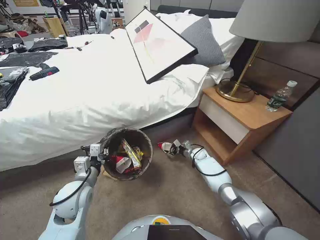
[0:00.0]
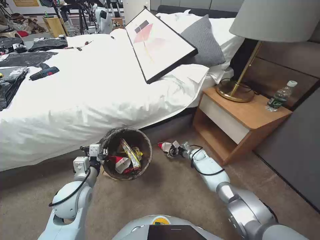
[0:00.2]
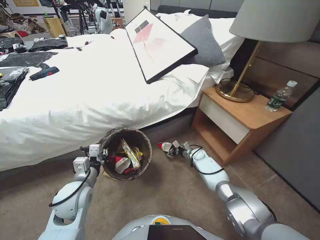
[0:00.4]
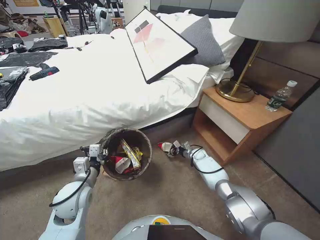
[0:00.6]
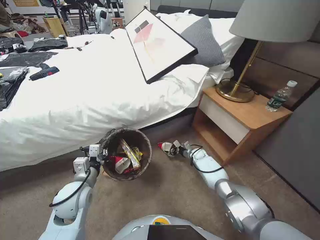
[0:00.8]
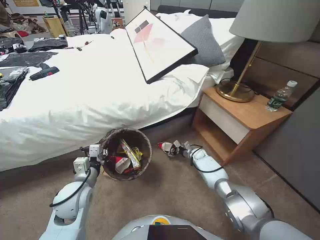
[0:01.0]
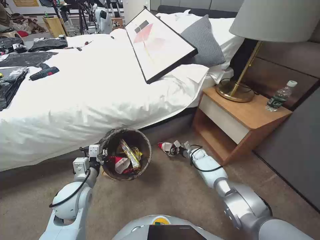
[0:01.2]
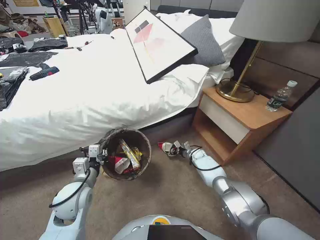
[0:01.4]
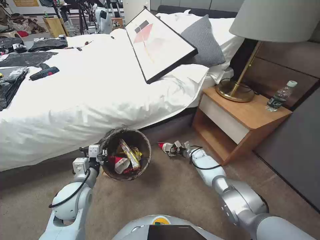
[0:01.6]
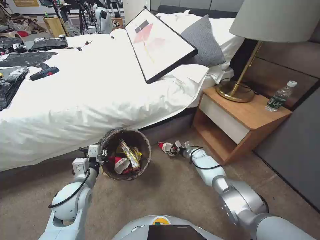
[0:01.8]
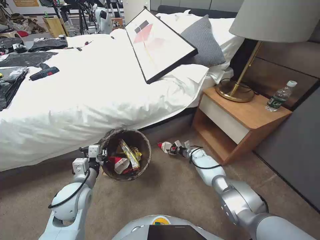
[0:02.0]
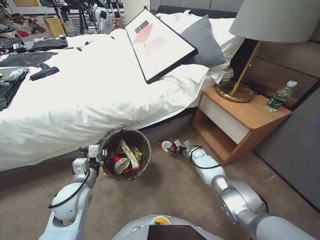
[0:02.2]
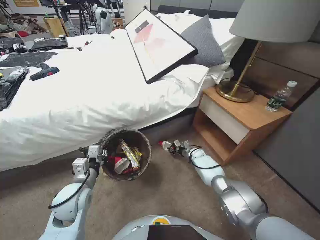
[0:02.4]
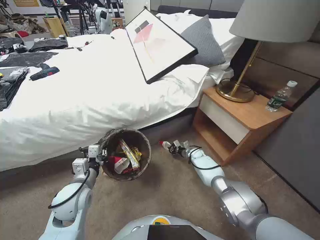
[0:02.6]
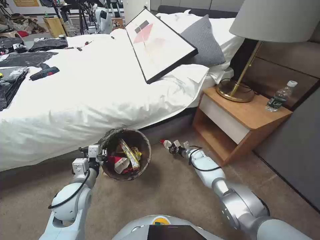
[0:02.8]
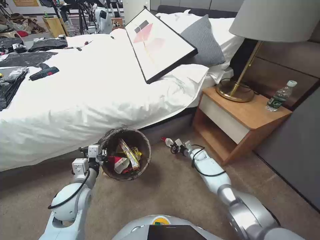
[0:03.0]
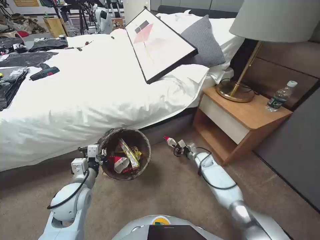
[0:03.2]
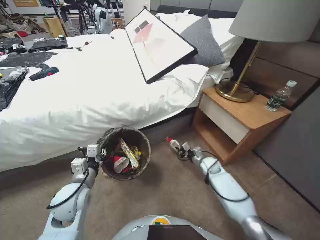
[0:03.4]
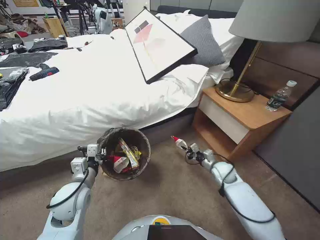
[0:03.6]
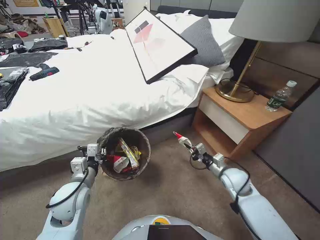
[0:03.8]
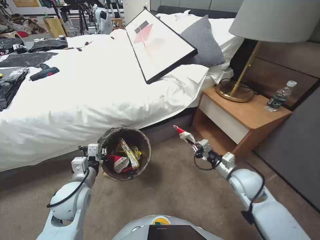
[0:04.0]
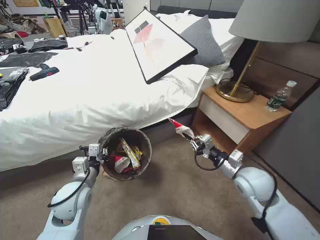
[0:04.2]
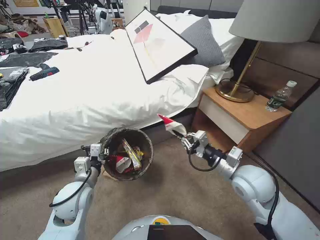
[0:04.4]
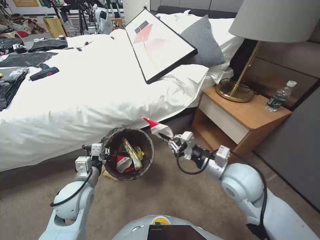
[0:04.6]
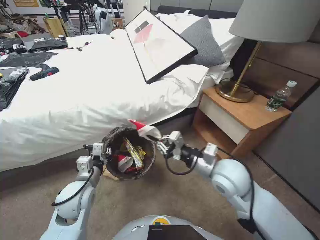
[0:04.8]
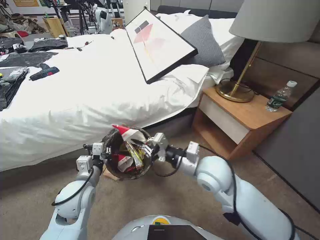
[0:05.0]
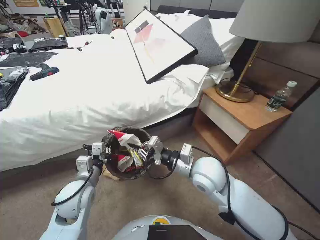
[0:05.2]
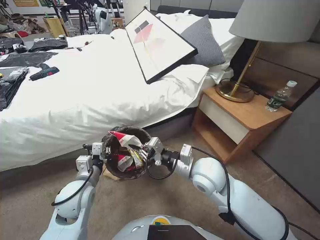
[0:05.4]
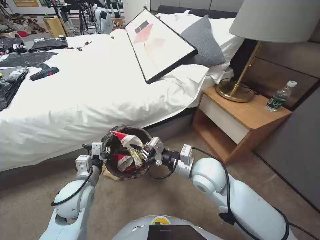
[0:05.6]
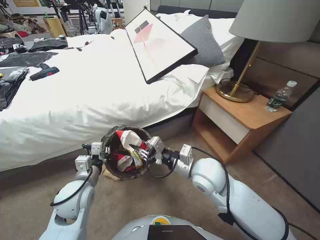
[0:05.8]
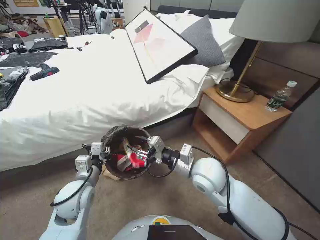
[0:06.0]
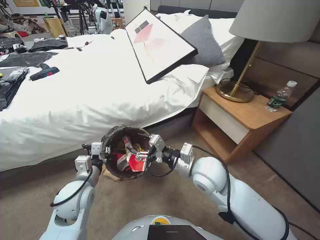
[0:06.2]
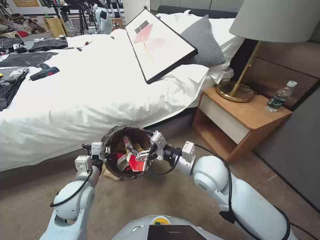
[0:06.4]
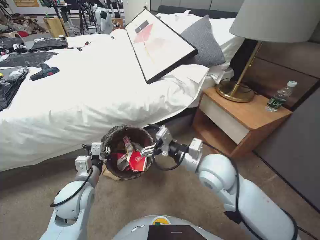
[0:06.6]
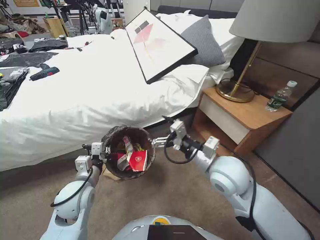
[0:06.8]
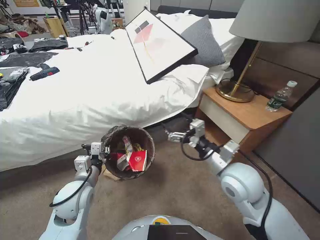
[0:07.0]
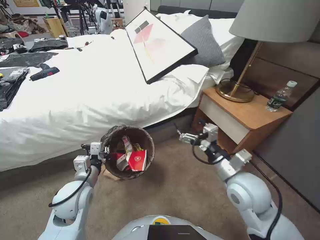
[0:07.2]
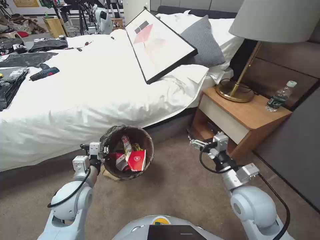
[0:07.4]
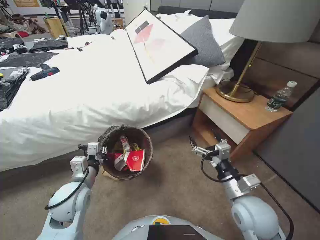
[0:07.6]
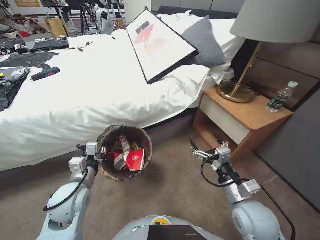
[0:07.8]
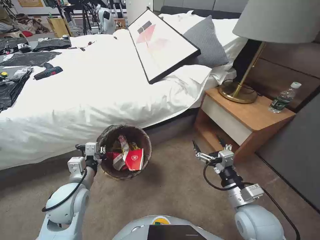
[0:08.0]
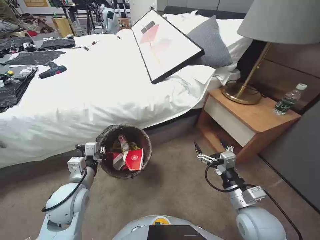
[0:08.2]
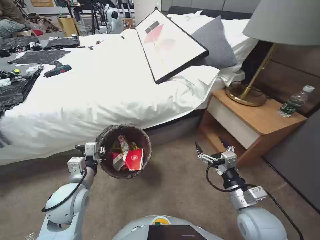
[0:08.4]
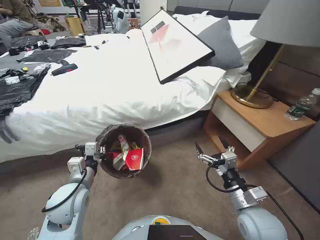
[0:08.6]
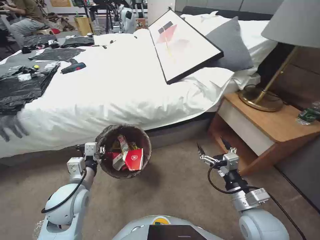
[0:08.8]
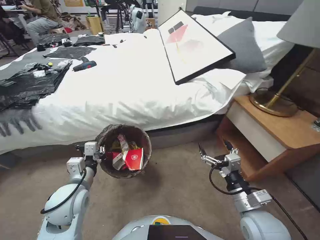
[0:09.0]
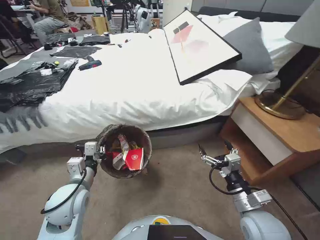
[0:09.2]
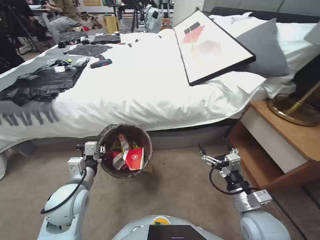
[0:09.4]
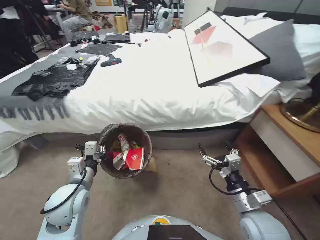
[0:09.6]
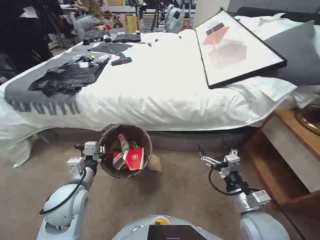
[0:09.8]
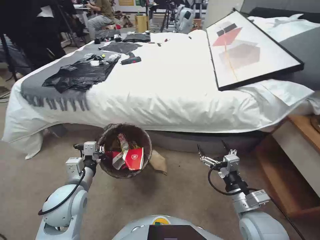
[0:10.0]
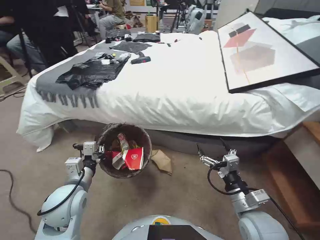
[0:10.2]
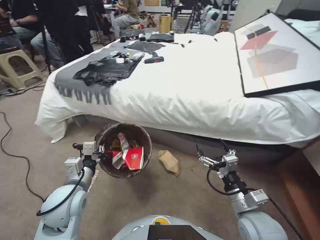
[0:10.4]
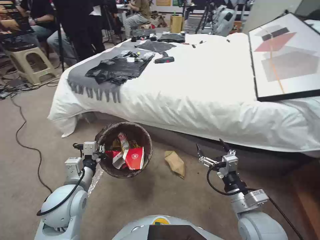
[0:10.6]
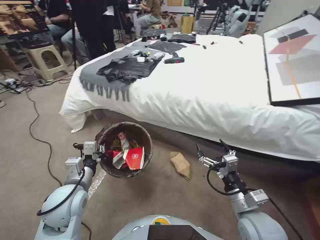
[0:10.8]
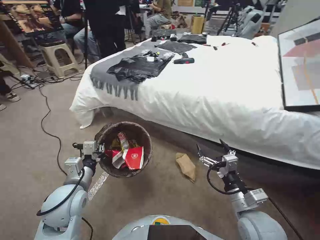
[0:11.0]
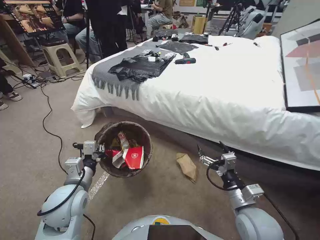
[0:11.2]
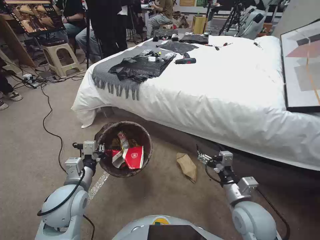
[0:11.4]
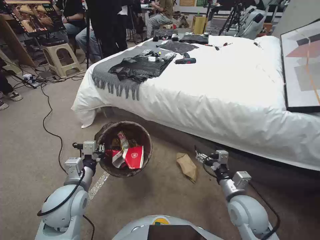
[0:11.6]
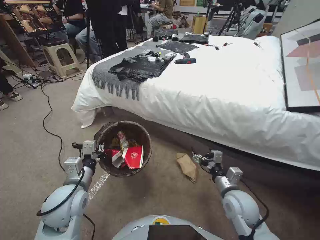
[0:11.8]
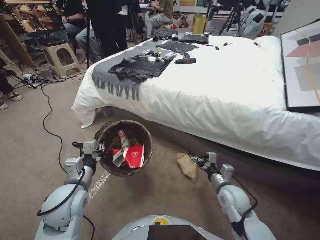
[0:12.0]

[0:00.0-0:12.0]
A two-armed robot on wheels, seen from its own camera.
Task of the whole recording: Pick up the trash bin, then pick up the garbage from the floor and place it into the trash bin.
0:00.0 to 0:01.6: There are only small adjustments of the grippers.
0:01.6 to 0:03.0: The right gripper closes up.
0:03.0 to 0:04.4: The right gripper travels upward and backward by approximately 40 cm.
0:04.4 to 0:06.0: The right gripper goes roughly 15 cm to the left.
0:06.0 to 0:07.6: The right gripper goes approximately 15 cm to the right and backward, and opens its fingers.
0:07.6 to 0:09.0: The right gripper changes place by approximately 5 cm.
0:10.4 to 0:12.0: The right gripper goes about 10 cm forward and downward.

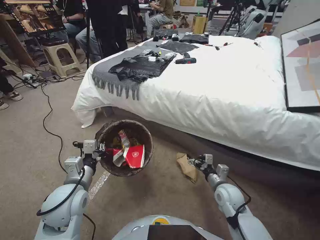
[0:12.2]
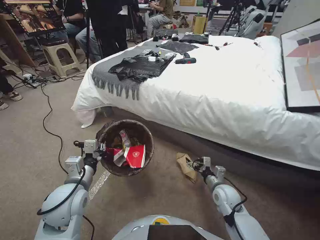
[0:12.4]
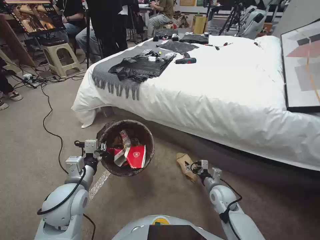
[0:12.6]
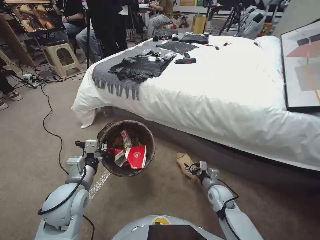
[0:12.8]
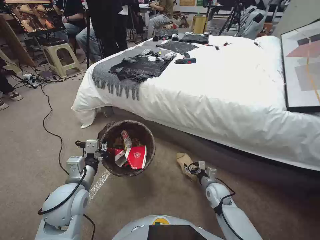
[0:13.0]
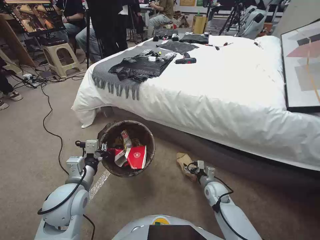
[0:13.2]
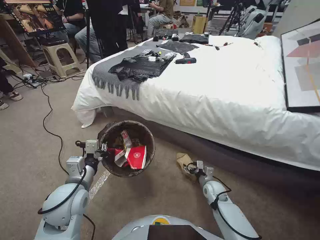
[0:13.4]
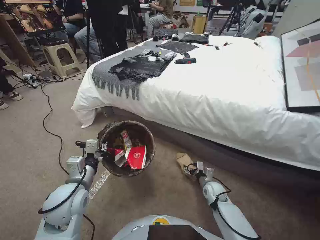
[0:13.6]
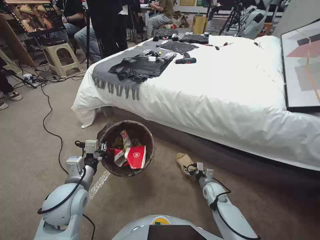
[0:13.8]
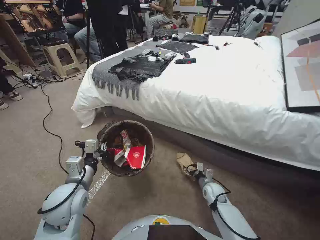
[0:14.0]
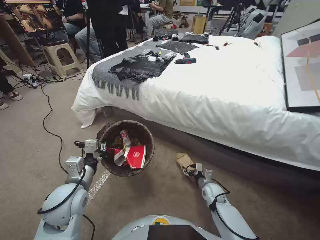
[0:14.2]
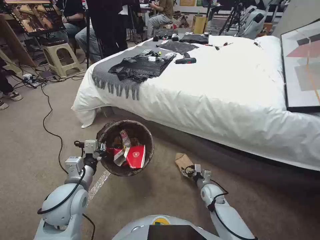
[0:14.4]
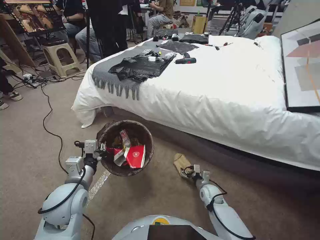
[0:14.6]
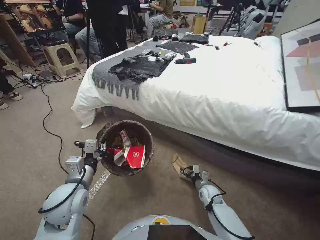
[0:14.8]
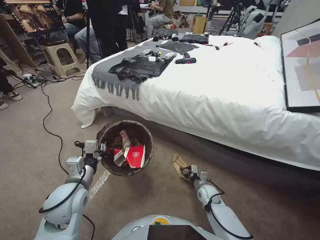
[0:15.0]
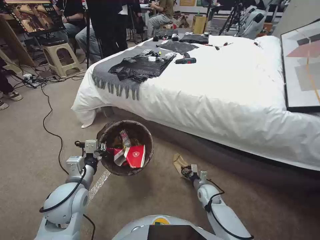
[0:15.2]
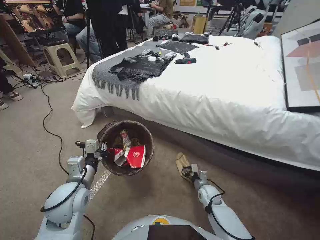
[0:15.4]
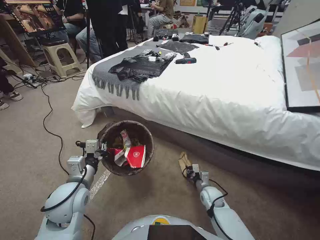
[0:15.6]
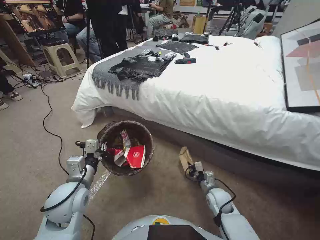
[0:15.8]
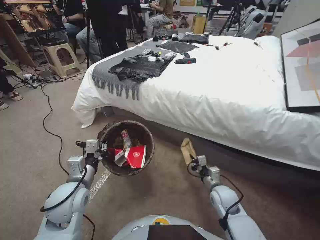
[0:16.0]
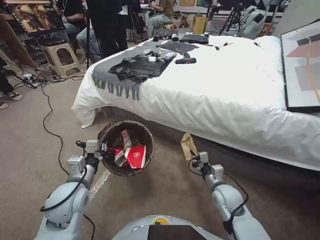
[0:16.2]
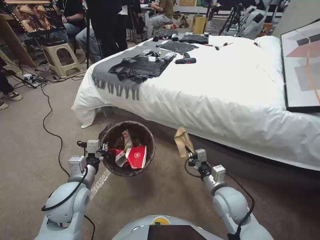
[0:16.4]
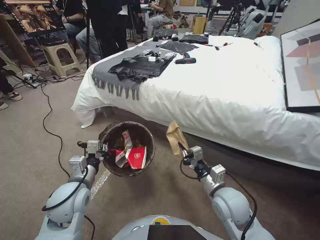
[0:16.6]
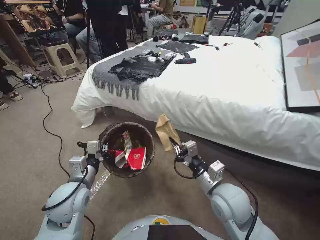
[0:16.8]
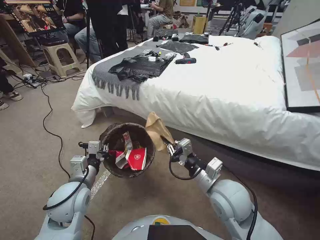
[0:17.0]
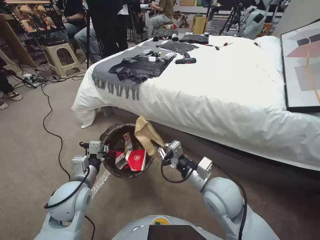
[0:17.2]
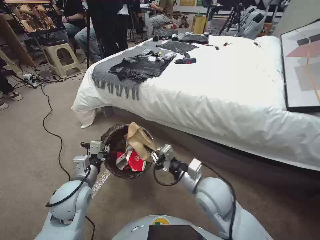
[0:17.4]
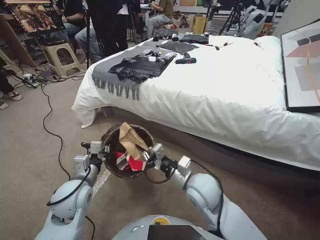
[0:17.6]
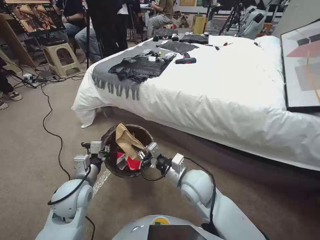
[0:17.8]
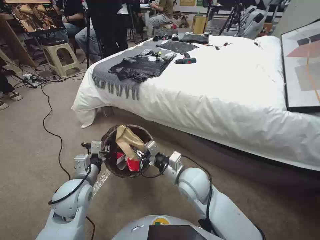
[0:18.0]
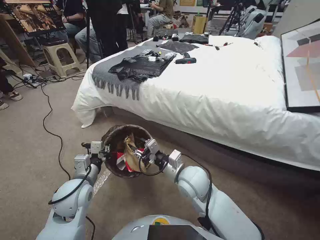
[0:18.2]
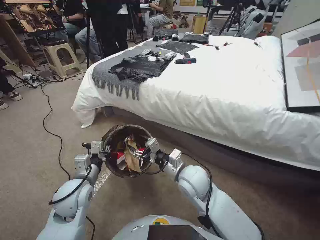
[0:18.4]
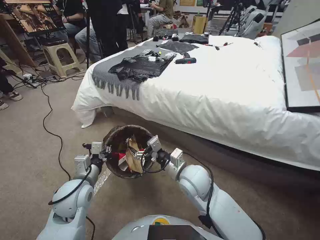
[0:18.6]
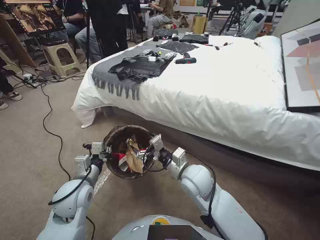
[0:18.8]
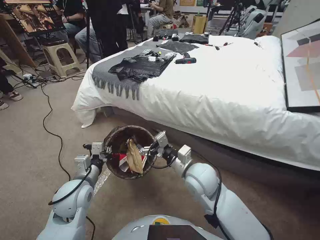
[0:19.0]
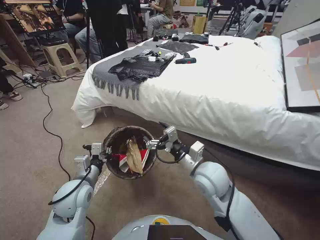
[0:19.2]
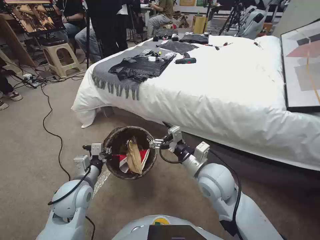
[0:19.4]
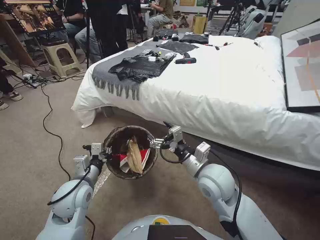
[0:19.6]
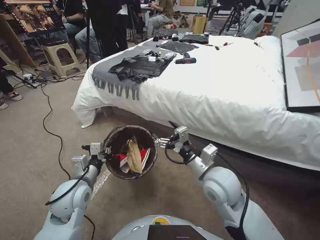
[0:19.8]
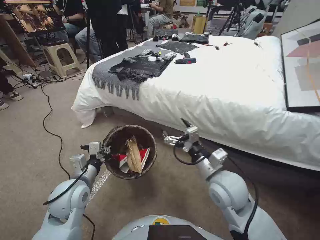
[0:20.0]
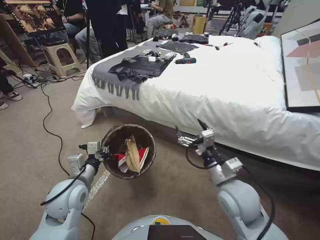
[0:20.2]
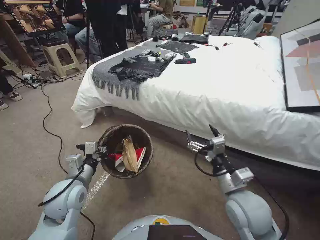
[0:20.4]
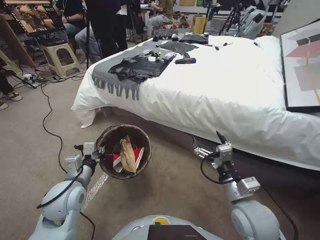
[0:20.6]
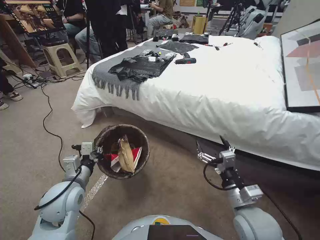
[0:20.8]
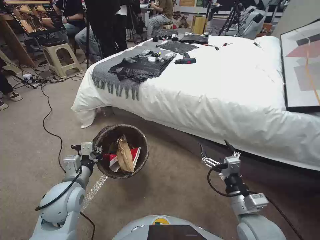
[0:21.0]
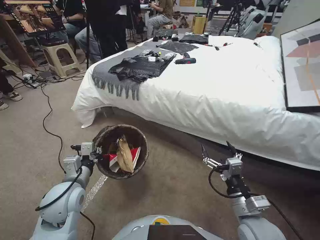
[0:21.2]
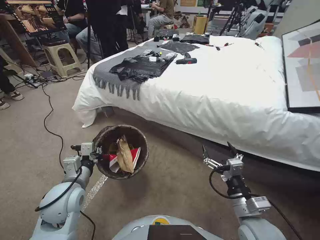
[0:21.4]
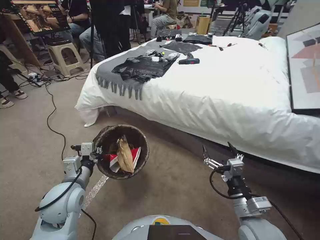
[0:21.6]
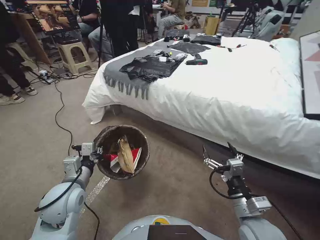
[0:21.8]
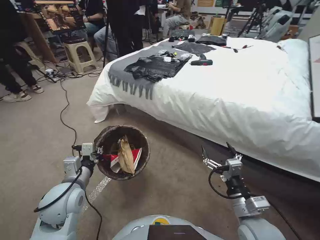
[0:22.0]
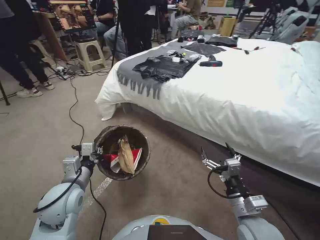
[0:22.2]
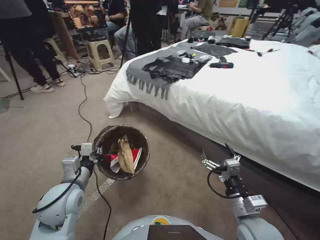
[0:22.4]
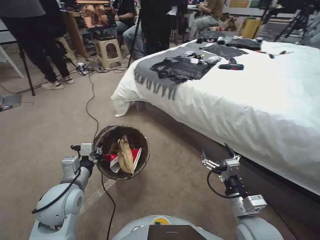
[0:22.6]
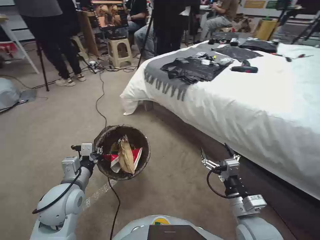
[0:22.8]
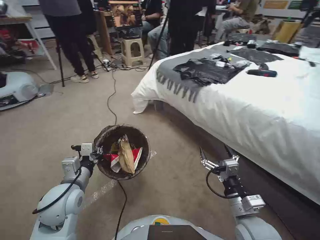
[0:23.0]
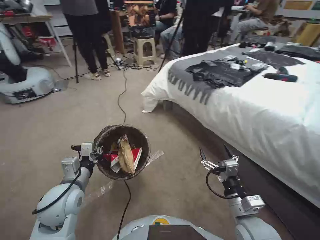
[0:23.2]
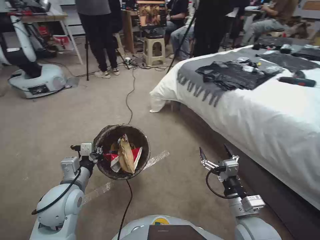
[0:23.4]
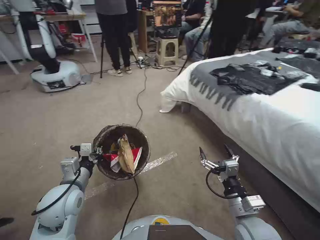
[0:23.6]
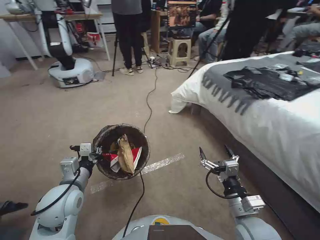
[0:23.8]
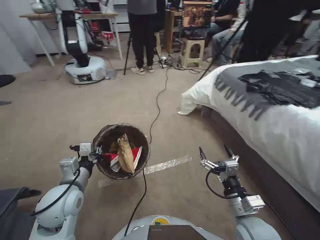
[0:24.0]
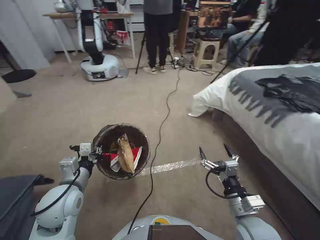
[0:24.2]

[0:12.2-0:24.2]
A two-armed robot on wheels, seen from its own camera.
Task of the whole recording: Pick up the trash bin, then pick up the garbage from the floor and place it into the trash bin.
0:12.2 to 0:13.8: The right gripper travels downward by some 15 cm.
0:13.8 to 0:15.2: The right gripper closes its fingers.
0:15.2 to 0:16.6: The right gripper shifts approximately 25 cm upward, and closes up.
0:16.6 to 0:18.2: The right gripper moves to the left and forward, approximately 15 cm, and opens.
0:18.2 to 0:19.8: The right gripper travels to the right and upward by about 10 cm, and opens its fingers.
0:19.8 to 0:21.2: The right gripper shifts approximately 15 cm backward, to the right and downward.
